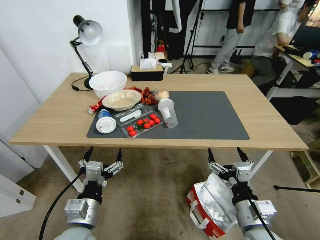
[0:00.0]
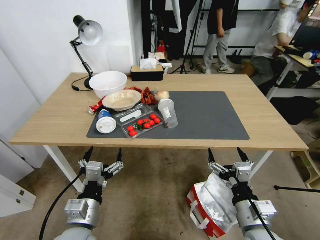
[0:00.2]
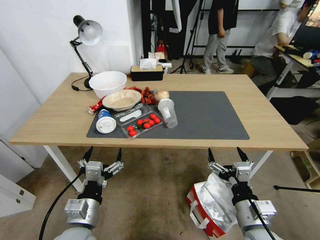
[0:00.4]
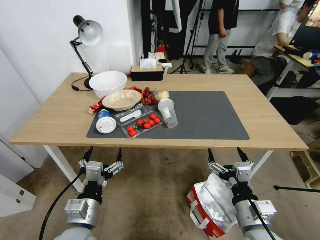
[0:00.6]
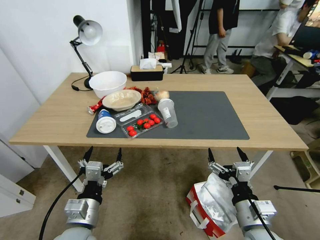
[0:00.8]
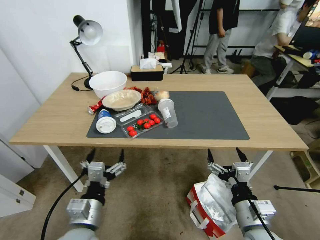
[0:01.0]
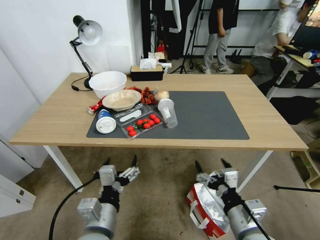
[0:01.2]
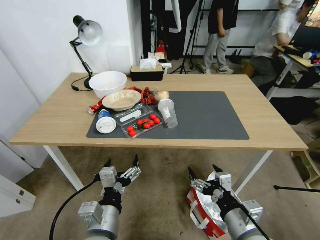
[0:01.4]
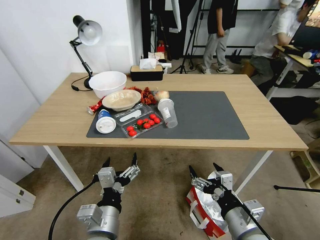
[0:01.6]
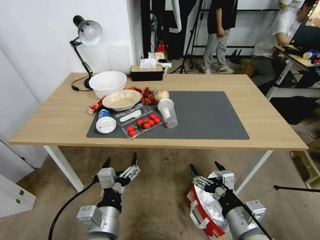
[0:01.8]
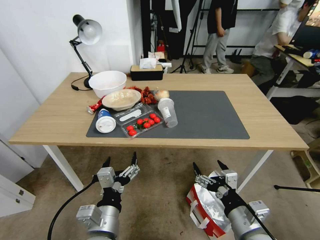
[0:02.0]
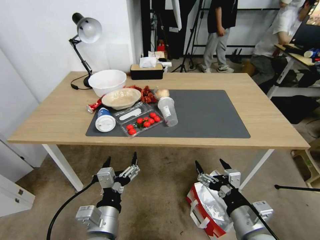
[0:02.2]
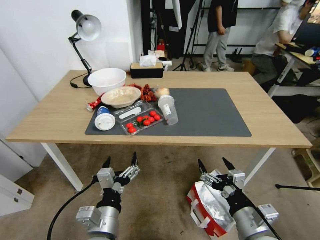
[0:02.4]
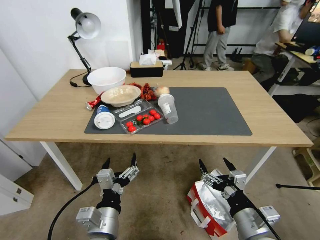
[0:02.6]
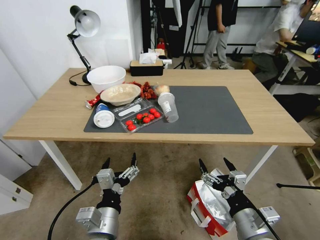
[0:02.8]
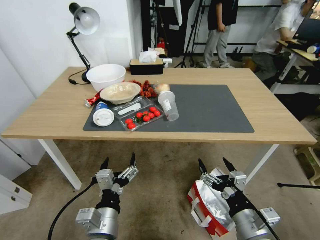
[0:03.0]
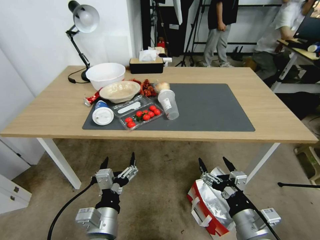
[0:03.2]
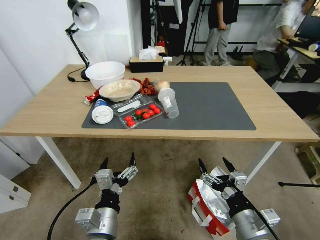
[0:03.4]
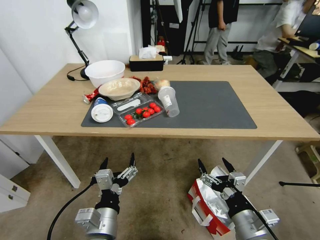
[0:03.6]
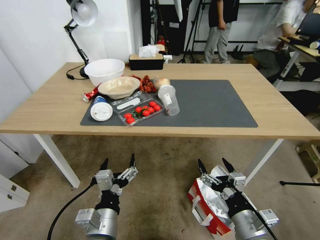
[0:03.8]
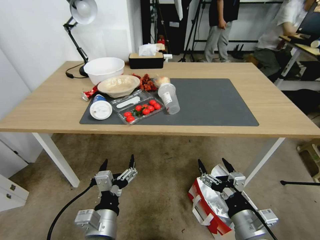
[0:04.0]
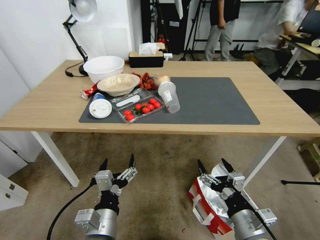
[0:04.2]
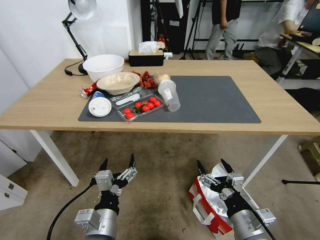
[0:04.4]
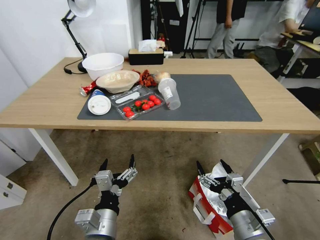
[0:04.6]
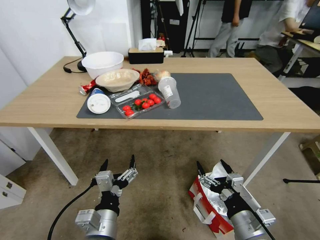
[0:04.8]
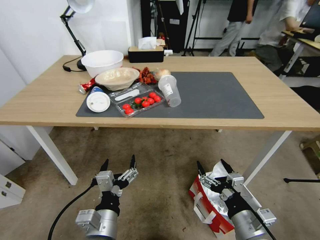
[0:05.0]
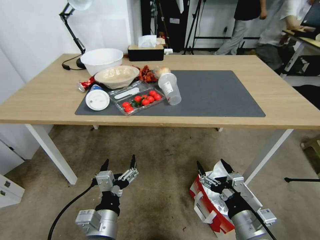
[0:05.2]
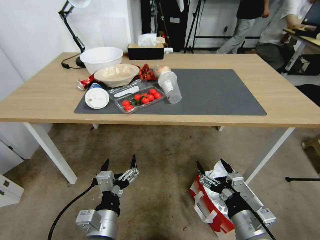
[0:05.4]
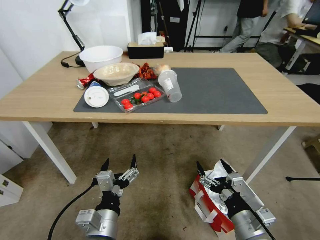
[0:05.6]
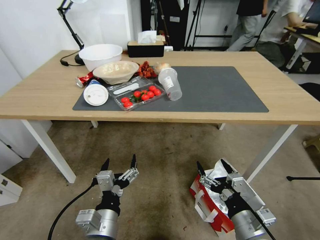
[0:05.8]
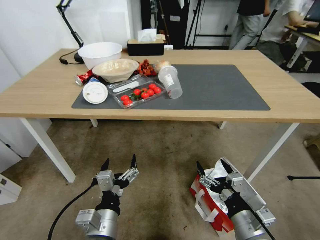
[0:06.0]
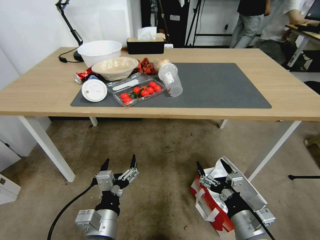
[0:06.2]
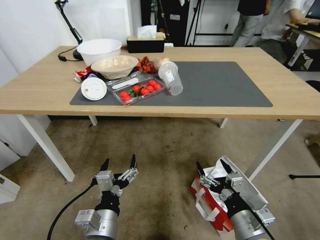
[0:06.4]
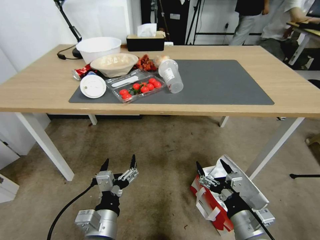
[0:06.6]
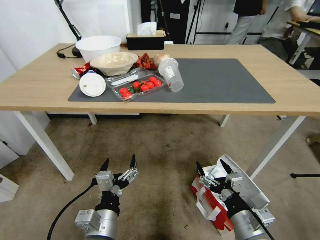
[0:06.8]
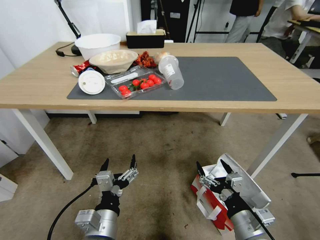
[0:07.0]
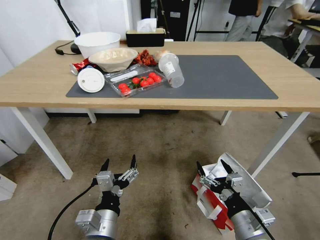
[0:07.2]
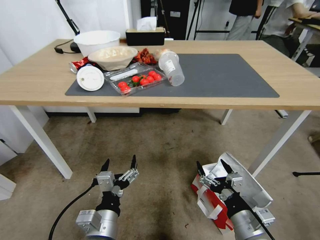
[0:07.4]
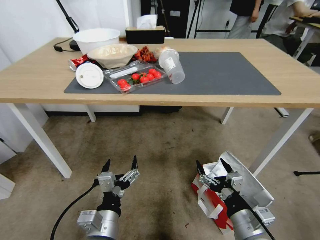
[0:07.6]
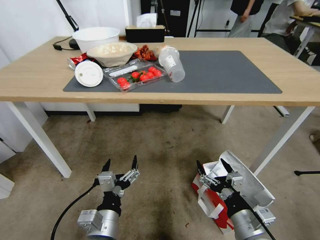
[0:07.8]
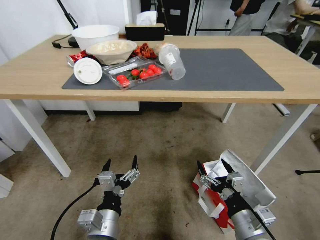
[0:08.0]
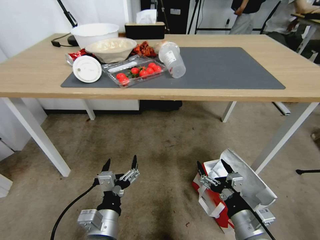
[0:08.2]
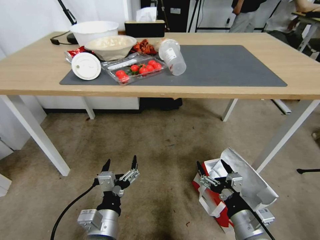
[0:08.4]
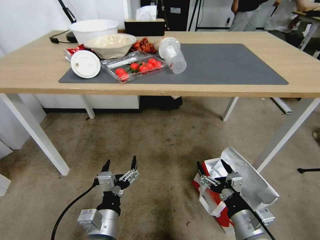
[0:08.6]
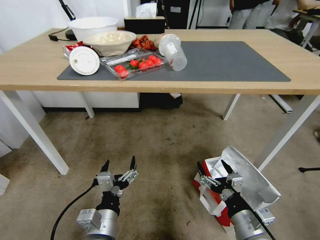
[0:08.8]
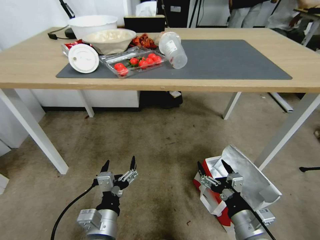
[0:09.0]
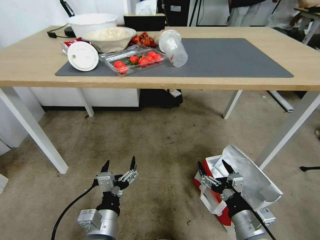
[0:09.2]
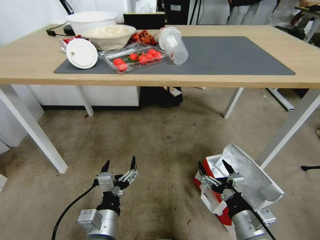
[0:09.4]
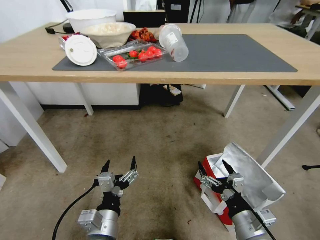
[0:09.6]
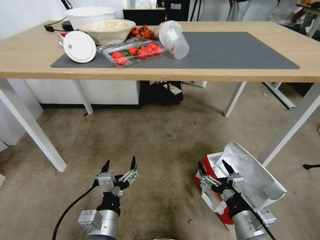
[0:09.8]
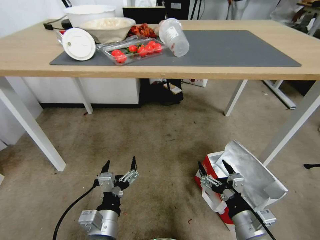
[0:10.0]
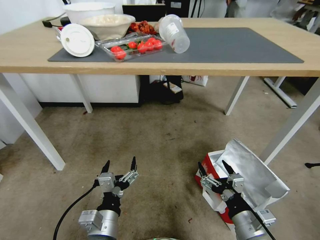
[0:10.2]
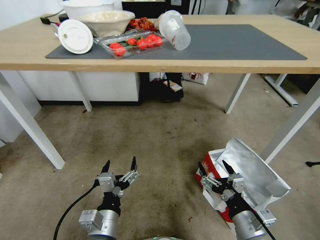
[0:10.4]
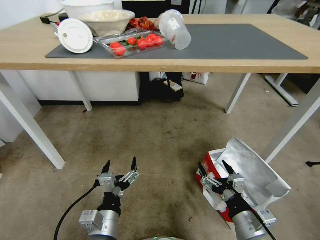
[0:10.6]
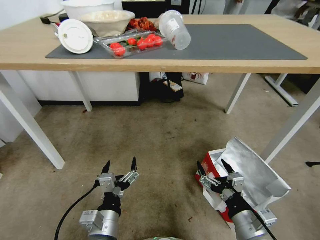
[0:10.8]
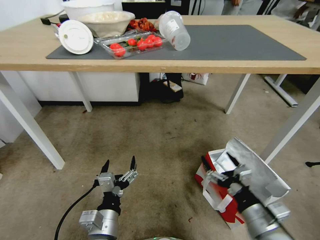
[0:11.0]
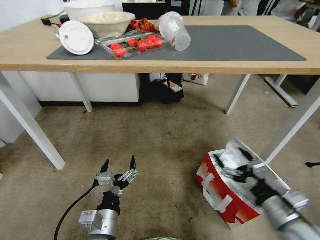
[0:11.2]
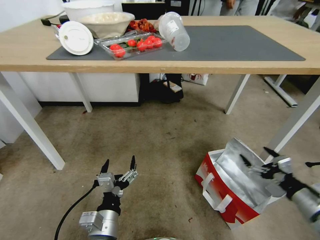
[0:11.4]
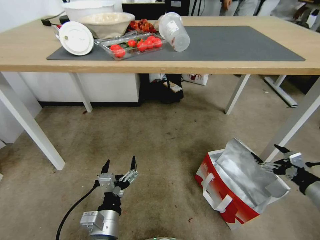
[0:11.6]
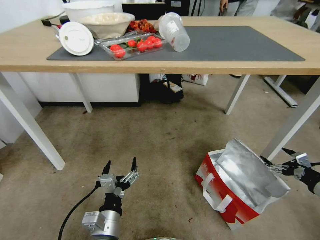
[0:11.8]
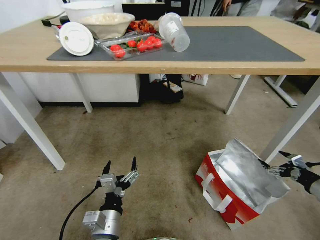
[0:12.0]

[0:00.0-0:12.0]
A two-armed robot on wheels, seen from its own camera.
Task of the whole recording: Pick up the food delivery bag from the floor and place it on the table.
0:10.4 to 0:12.0: The right gripper shifts some 30 cm to the right.

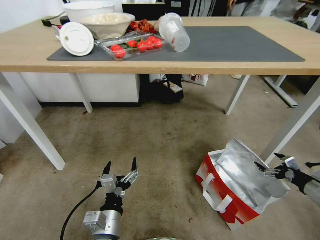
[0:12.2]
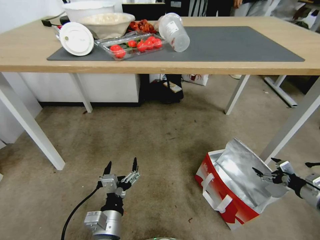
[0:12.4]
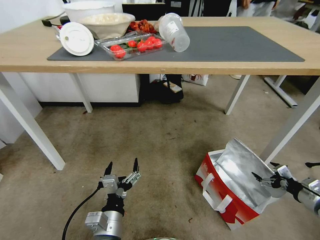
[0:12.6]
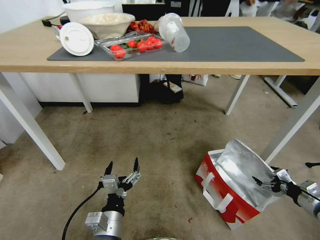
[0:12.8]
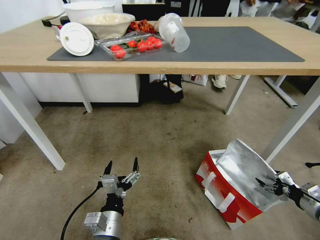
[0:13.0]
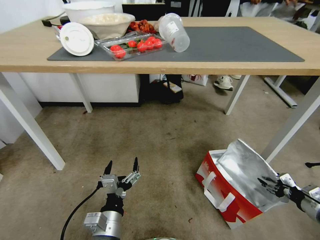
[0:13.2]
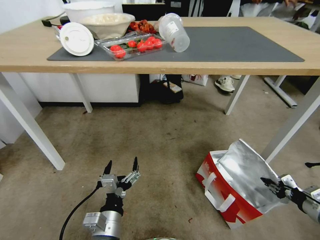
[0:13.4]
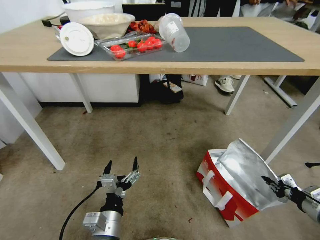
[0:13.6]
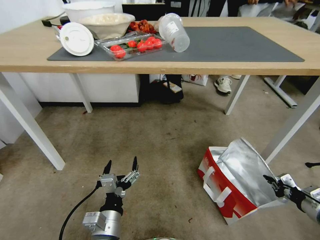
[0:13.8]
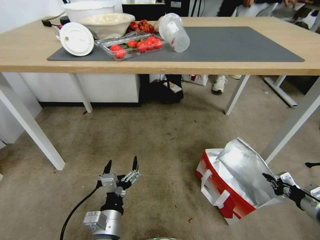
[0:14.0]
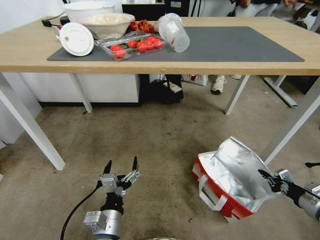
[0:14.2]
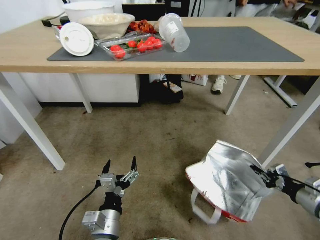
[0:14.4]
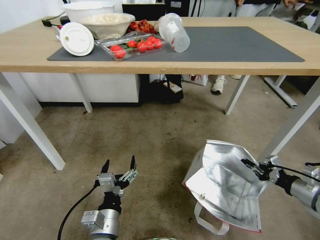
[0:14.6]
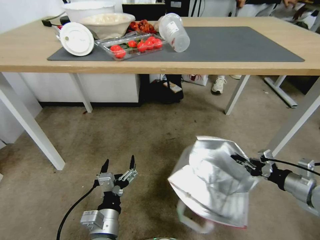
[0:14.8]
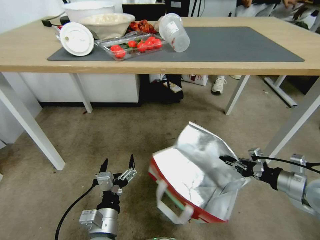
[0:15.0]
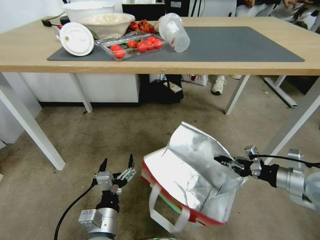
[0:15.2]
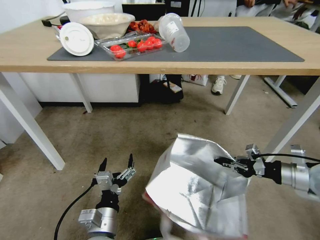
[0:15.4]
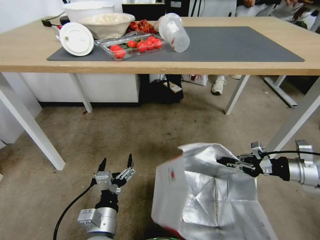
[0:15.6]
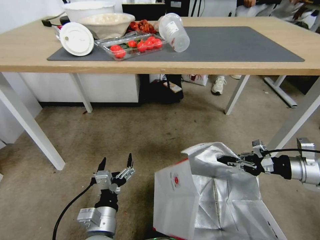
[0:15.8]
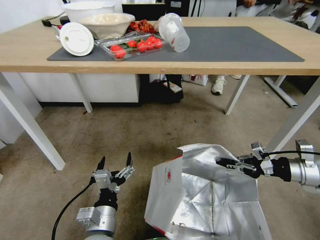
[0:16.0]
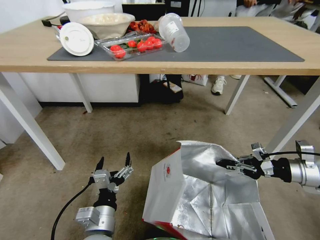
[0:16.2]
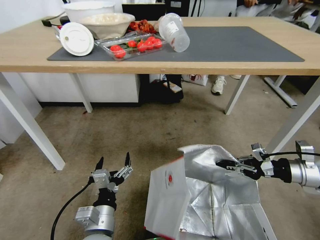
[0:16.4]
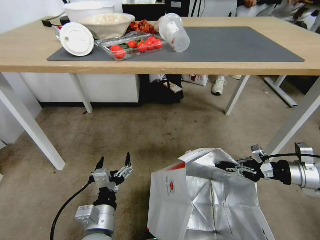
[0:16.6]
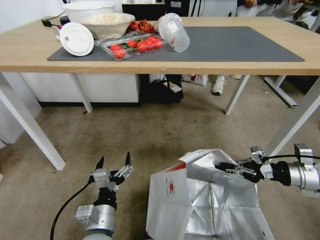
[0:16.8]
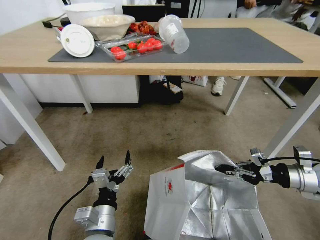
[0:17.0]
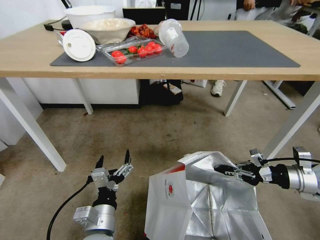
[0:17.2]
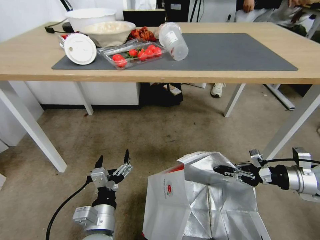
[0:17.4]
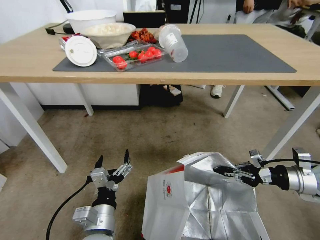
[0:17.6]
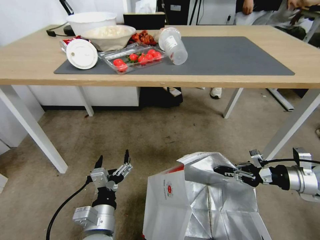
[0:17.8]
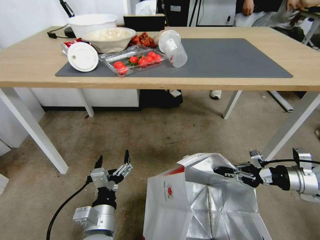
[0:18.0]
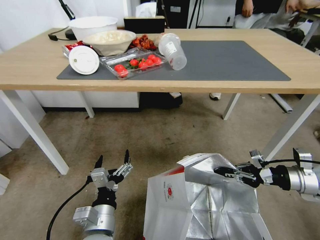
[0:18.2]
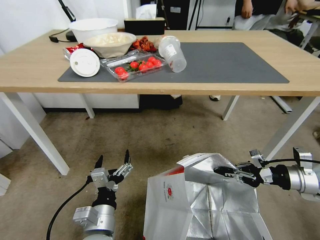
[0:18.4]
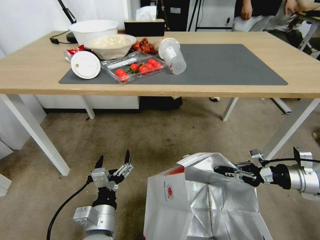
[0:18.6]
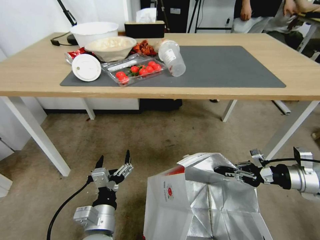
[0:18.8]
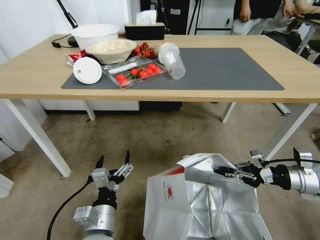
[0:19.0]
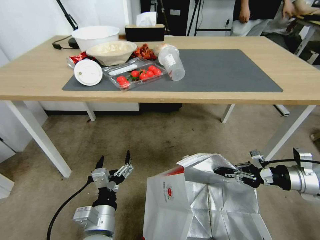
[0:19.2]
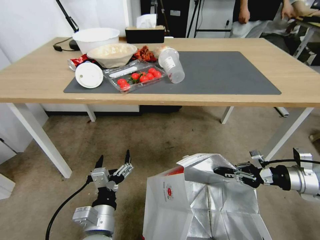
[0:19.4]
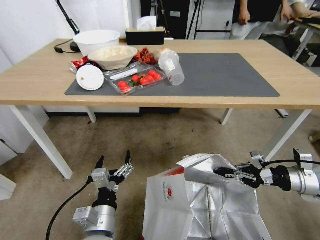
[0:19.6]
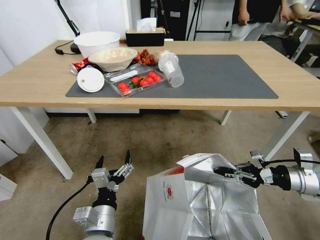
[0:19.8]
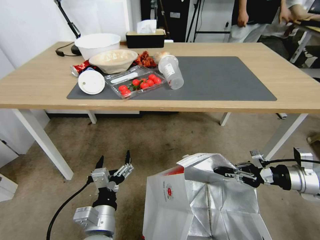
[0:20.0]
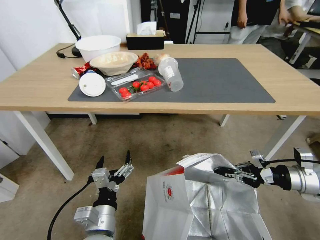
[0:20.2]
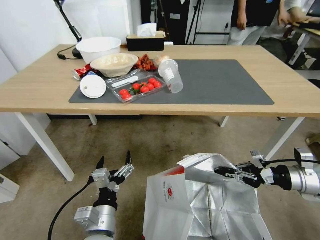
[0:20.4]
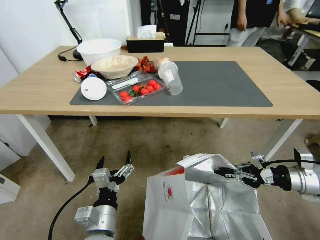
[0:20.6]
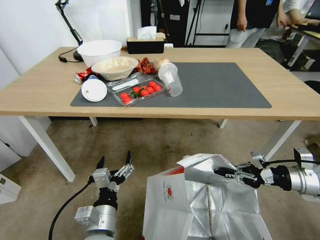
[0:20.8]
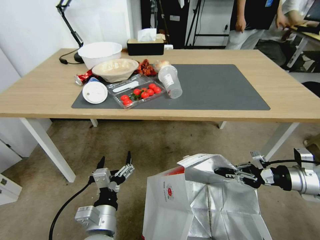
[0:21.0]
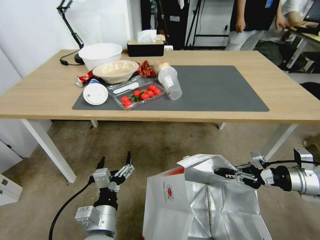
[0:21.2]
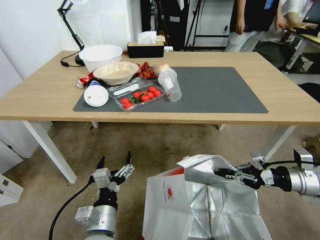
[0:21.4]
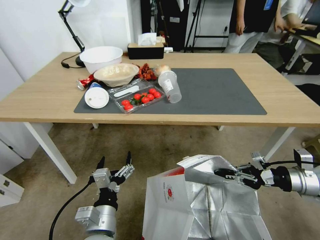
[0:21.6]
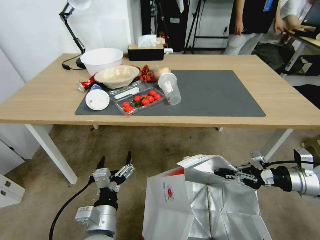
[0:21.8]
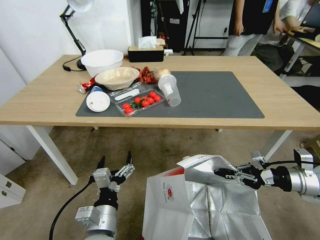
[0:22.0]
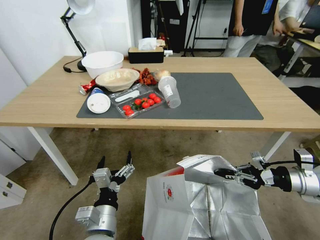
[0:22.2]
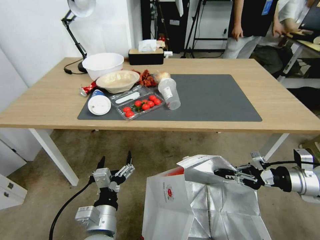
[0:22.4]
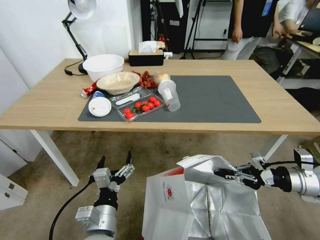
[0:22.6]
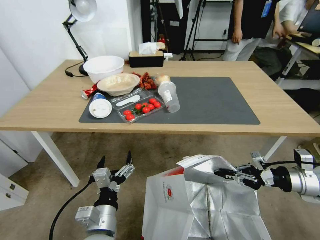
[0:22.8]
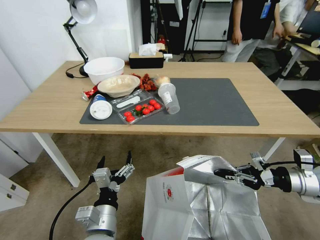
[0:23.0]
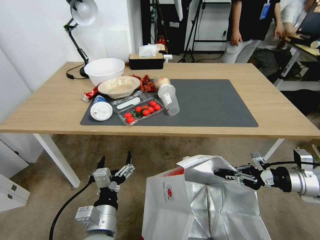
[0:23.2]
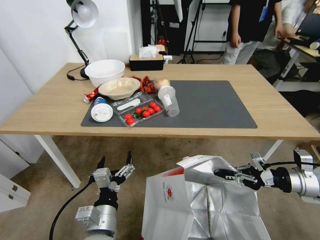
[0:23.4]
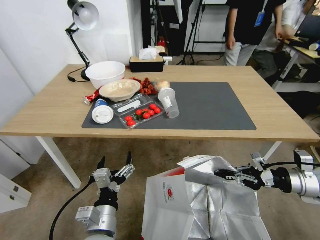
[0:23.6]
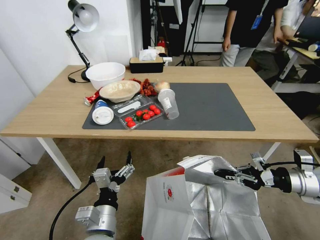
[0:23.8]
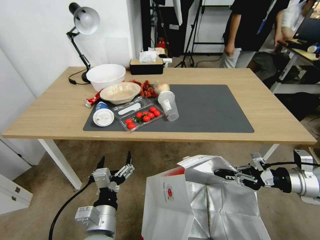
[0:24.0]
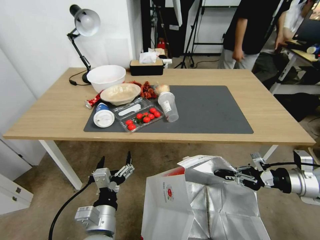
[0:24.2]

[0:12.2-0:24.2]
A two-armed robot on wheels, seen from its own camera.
Task of the whole recording: Pick up the food delivery bag from the floor and place it on the table.
0:12.2 to 0:13.8: The right gripper shifts by approximately 5 cm, and closes its fingers.
0:13.8 to 0:15.2: The right gripper shifts approximately 20 cm upward and to the left.
0:15.2 to 0:16.6: The right gripper changes place by roughly 5 cm.
